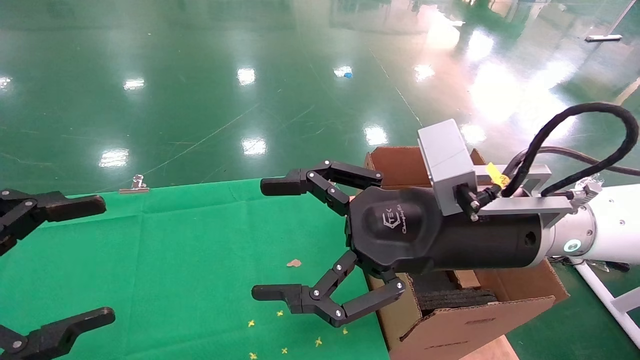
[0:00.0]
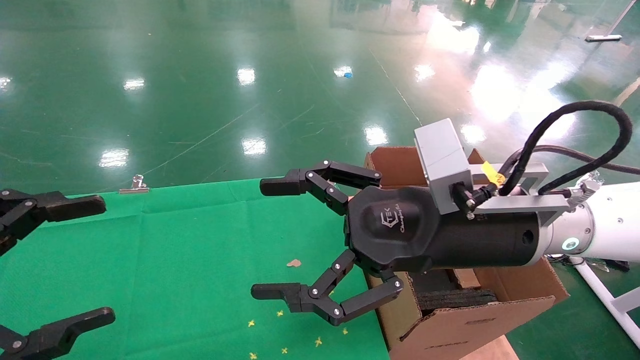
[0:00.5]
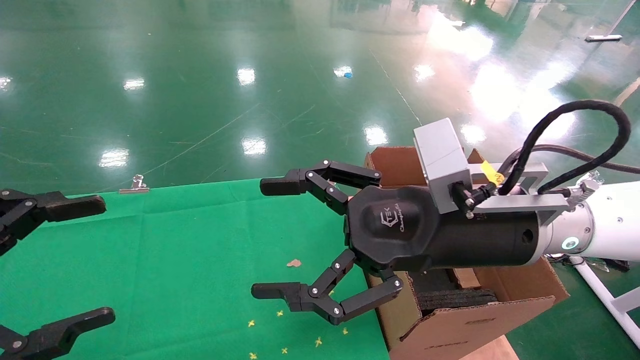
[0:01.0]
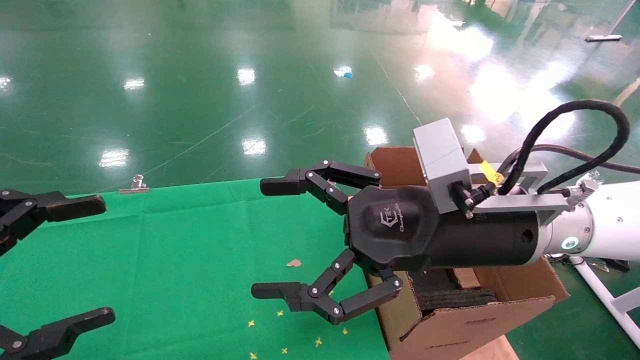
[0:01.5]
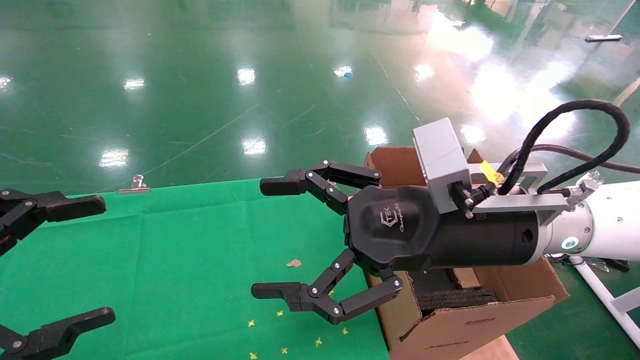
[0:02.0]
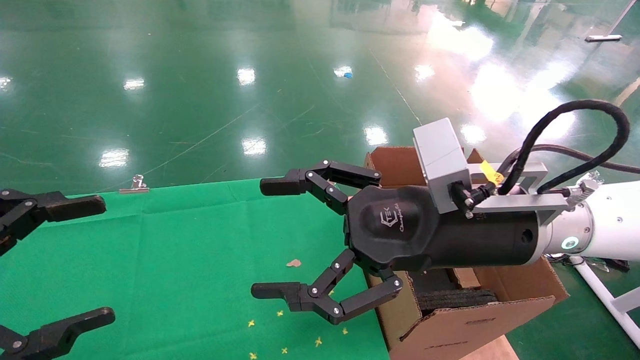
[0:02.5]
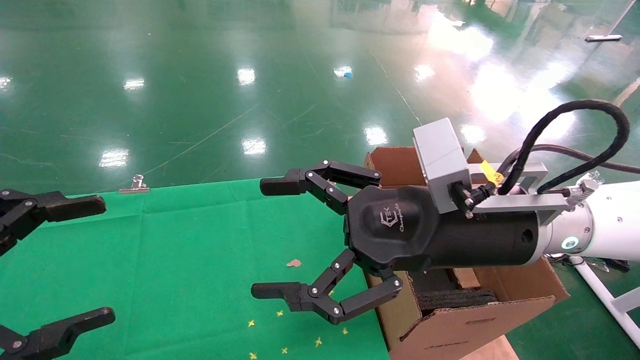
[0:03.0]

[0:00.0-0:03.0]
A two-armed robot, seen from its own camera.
Task of the whole recording: using a robotic arm to pick up a cardboard box and palace it the carton.
0:00.0 to 0:03.0: Both grippers stay about where they are.
